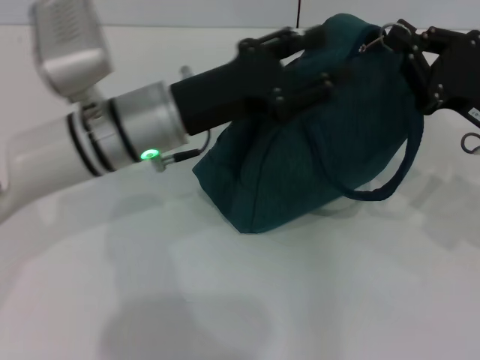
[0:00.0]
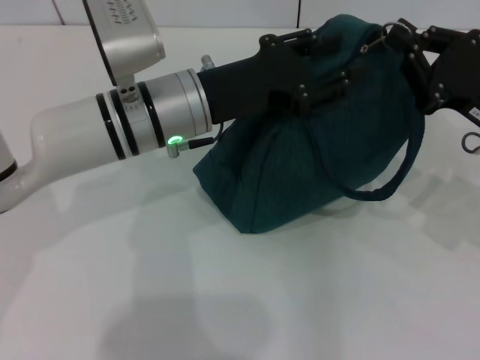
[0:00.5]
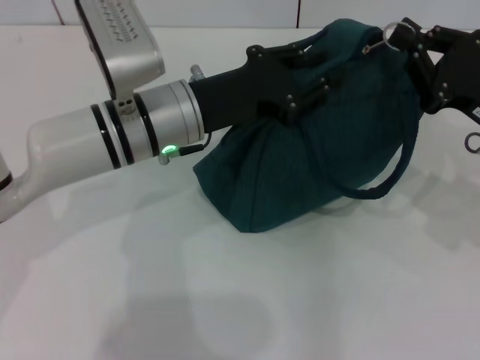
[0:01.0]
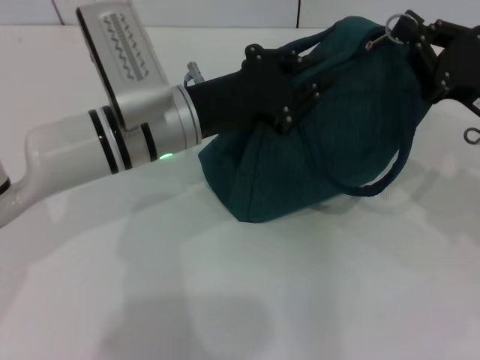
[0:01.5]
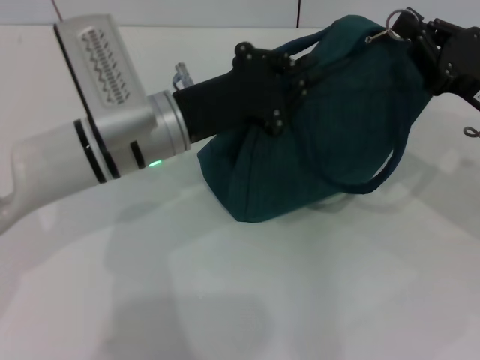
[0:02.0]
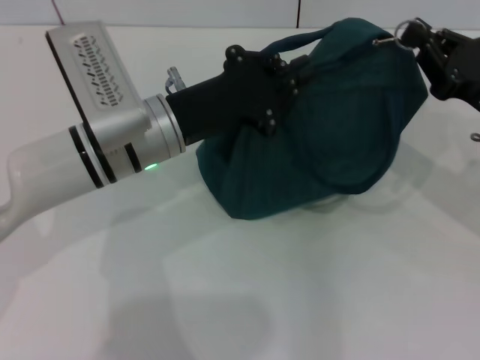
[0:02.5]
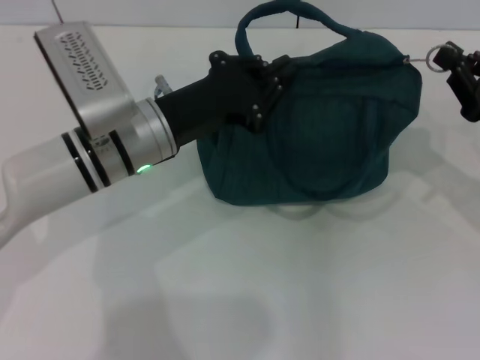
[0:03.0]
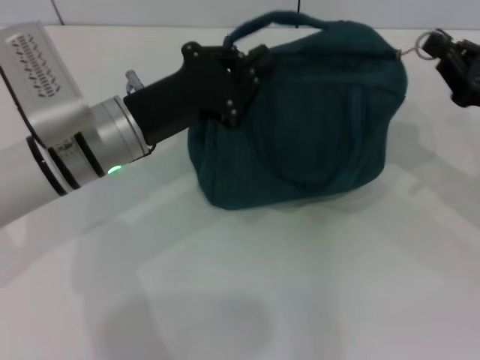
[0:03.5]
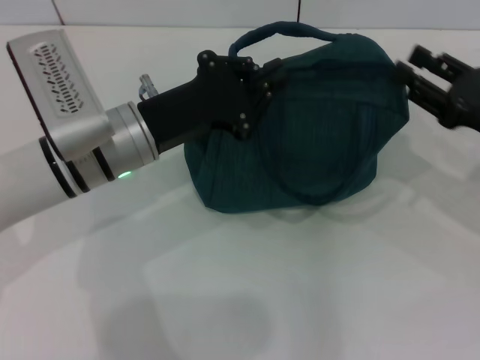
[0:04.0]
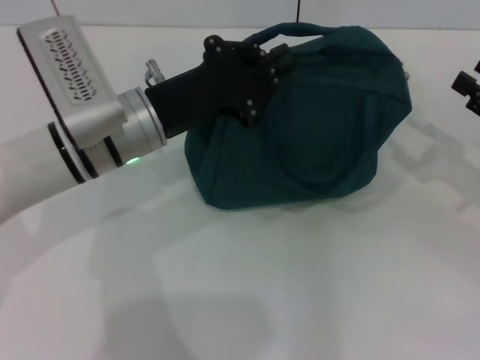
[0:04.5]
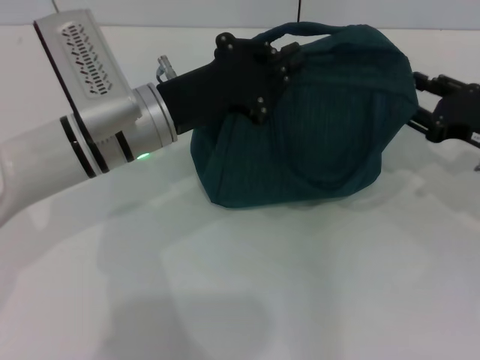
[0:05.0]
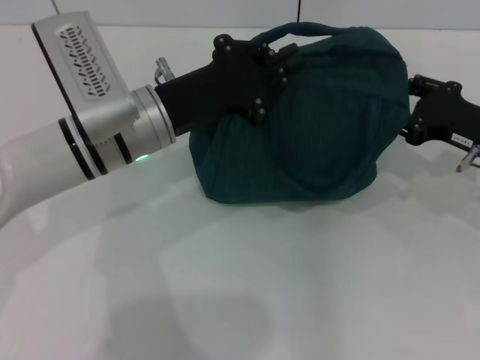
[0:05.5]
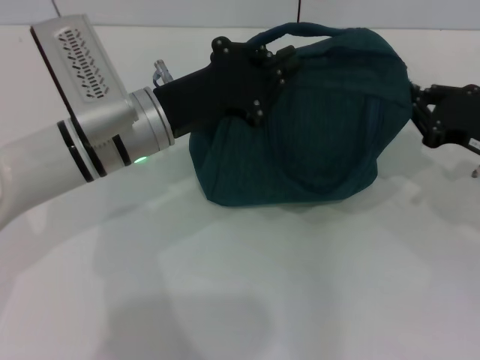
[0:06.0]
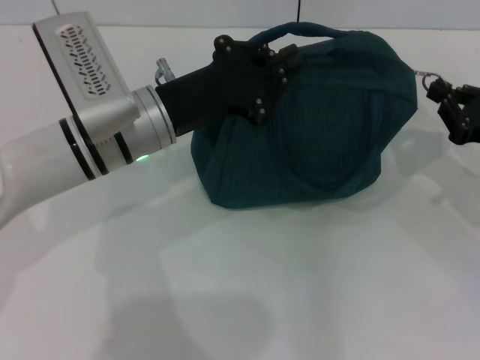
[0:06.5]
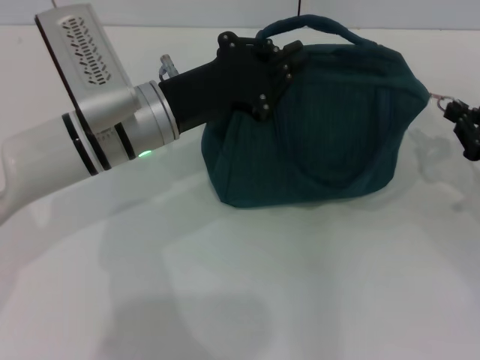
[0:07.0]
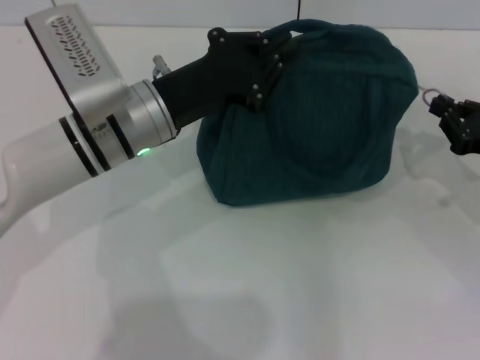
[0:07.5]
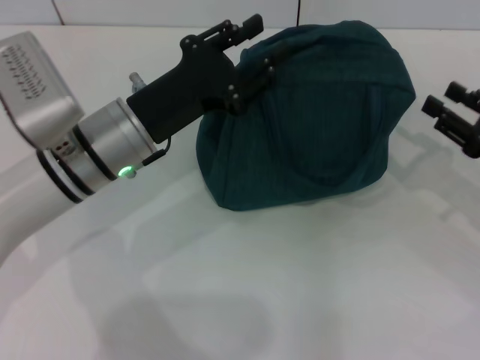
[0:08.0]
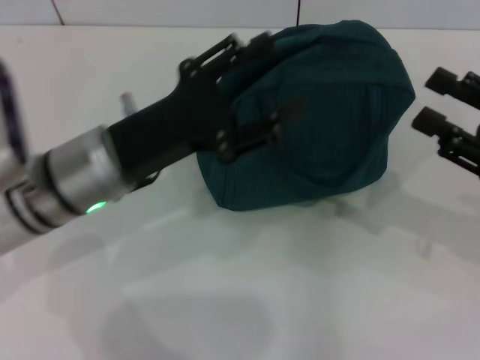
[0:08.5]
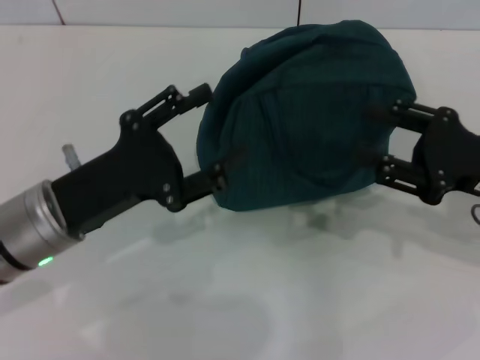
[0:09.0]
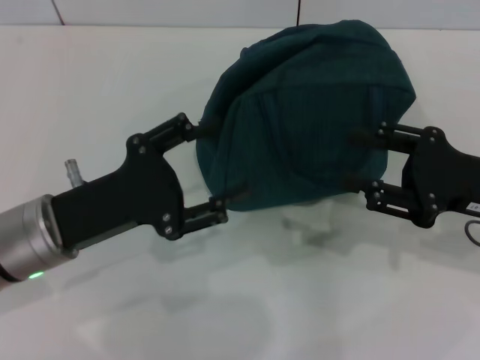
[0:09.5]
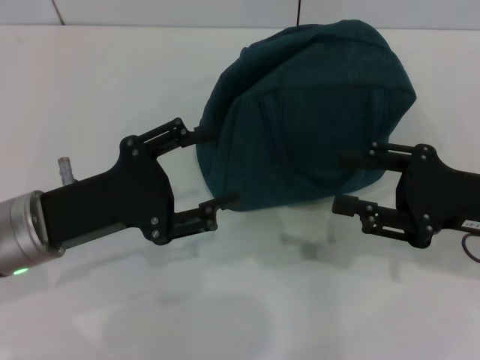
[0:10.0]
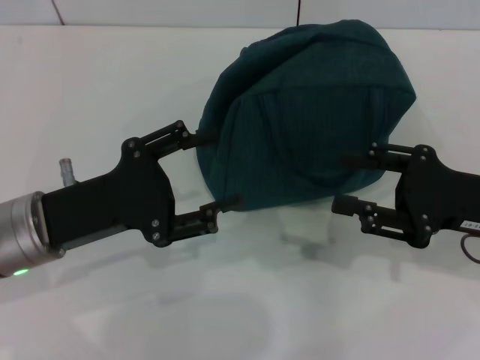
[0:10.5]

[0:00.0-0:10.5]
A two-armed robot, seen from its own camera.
Step, 0:00.0 to 0:04.0: Zip up the lunch bag with your right hand.
0:00.0 to 0:02.0: The left gripper closes up.
0:02.0 to 0:04.0: The right gripper opens up.
0:04.0 to 0:06.5: The right gripper closes its fingers.
0:06.5 to 0:08.5: Both grippers travel together backward, roughly 5 cm. The left gripper opens up. The right gripper opens up.
0:08.5 to 0:10.5: The left gripper shifts roughly 5 cm to the left.
